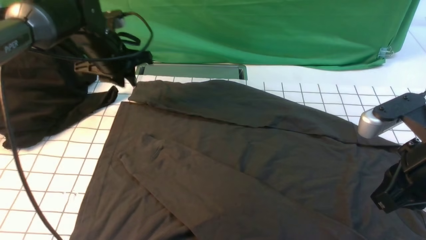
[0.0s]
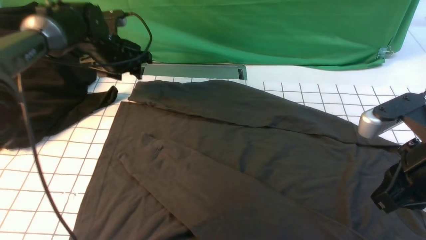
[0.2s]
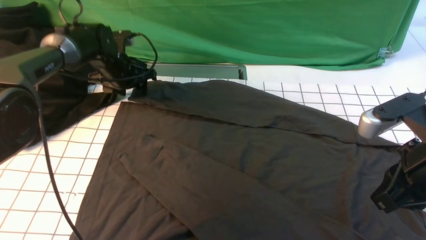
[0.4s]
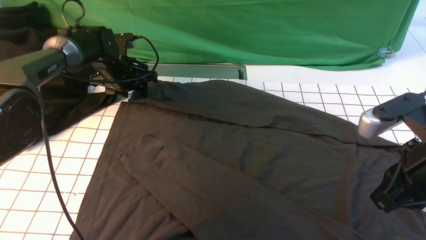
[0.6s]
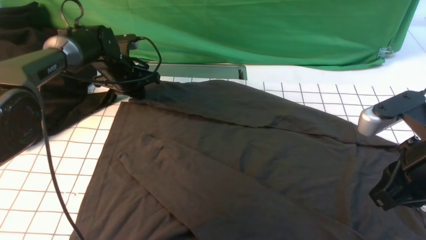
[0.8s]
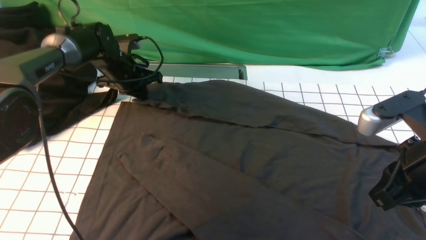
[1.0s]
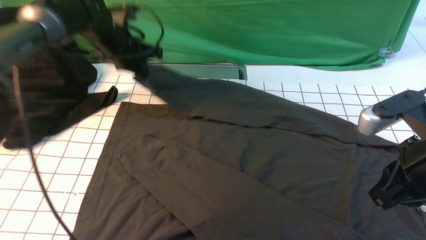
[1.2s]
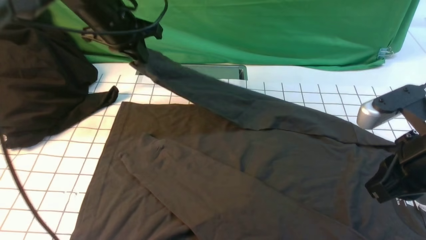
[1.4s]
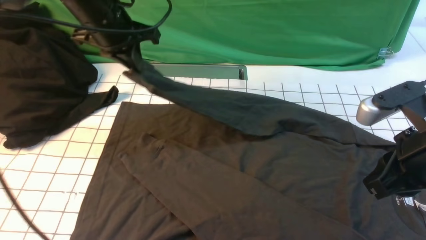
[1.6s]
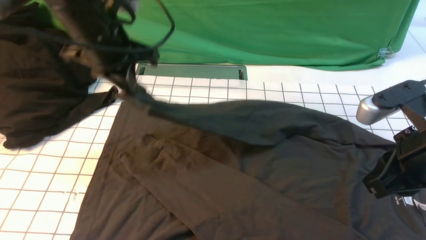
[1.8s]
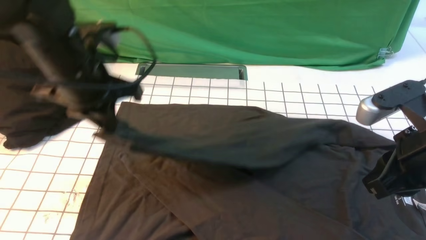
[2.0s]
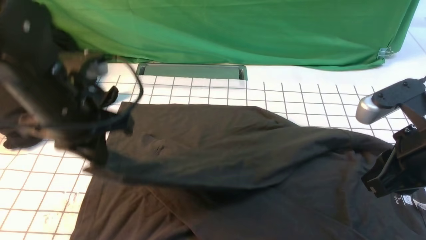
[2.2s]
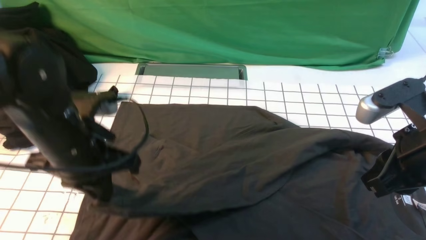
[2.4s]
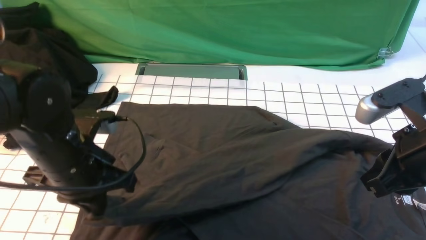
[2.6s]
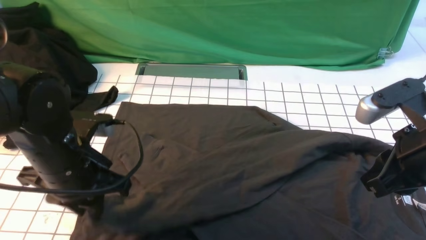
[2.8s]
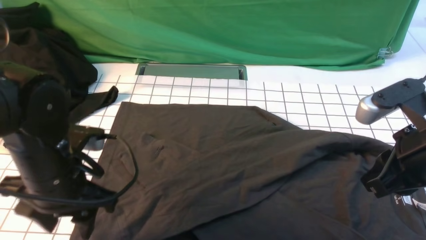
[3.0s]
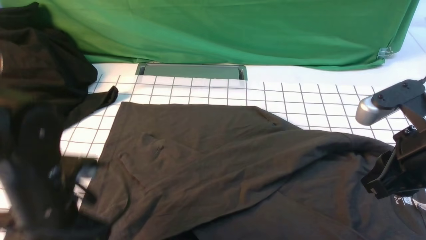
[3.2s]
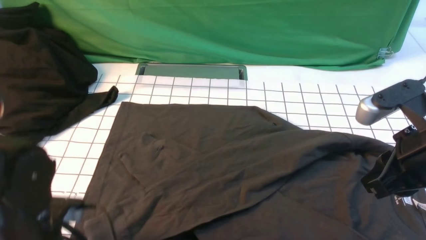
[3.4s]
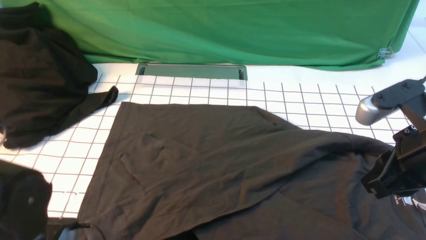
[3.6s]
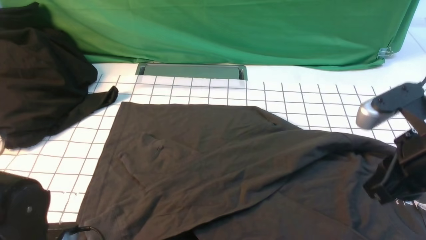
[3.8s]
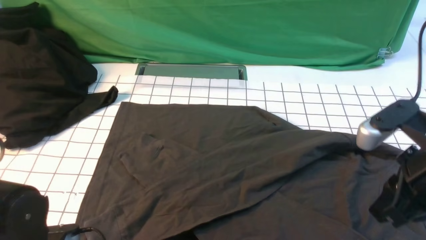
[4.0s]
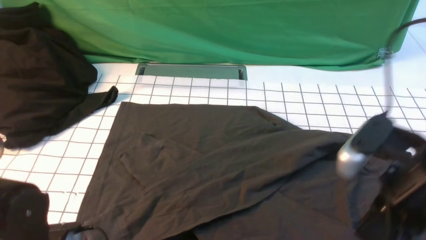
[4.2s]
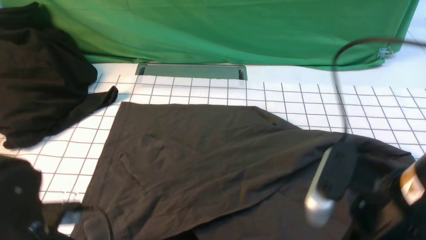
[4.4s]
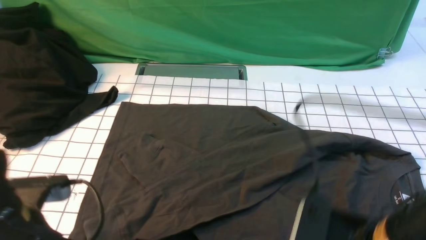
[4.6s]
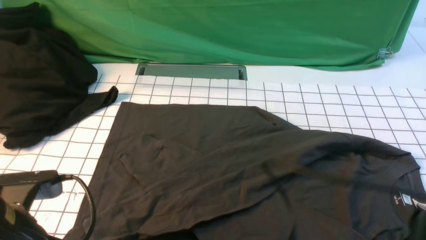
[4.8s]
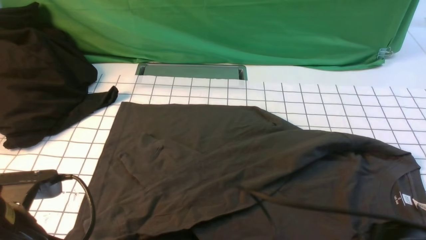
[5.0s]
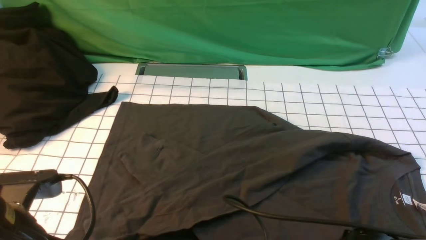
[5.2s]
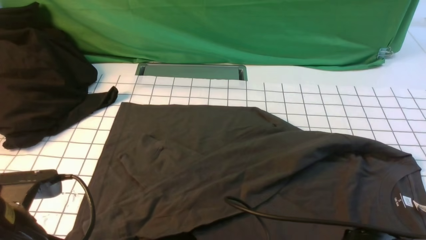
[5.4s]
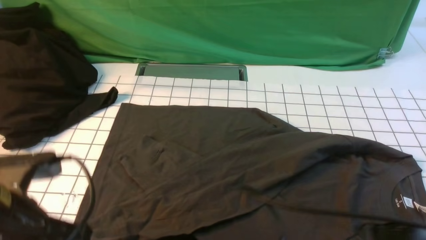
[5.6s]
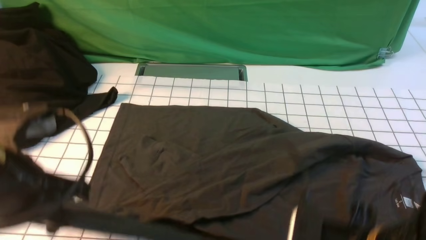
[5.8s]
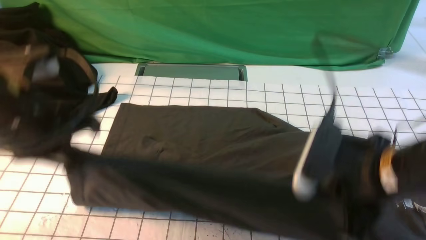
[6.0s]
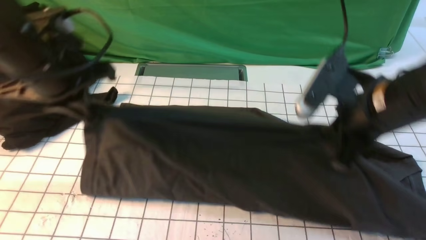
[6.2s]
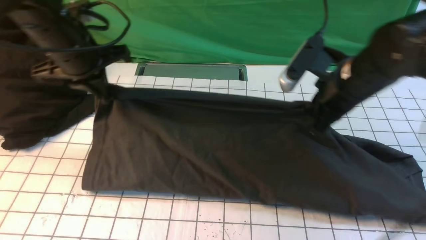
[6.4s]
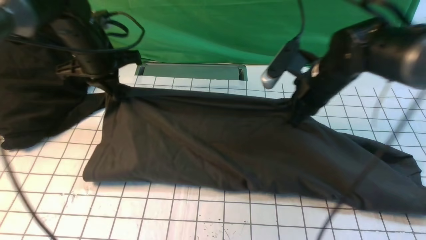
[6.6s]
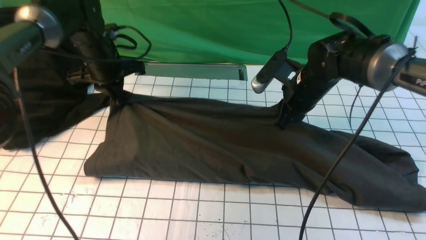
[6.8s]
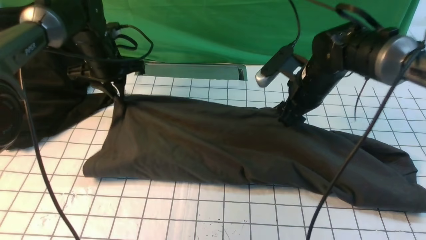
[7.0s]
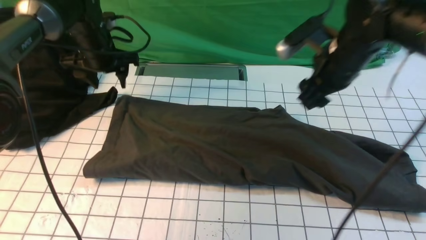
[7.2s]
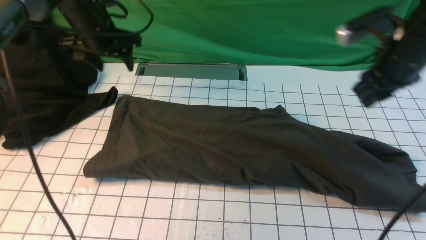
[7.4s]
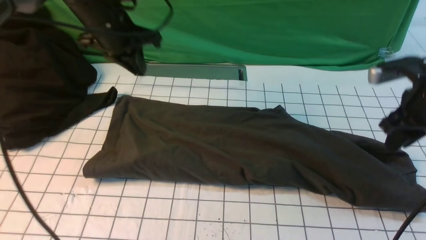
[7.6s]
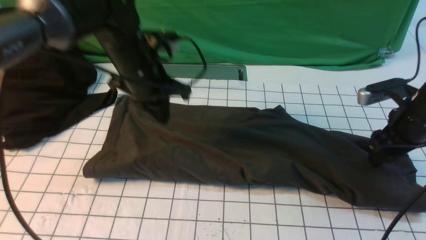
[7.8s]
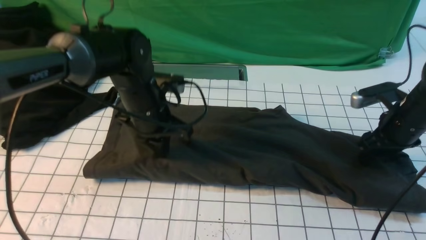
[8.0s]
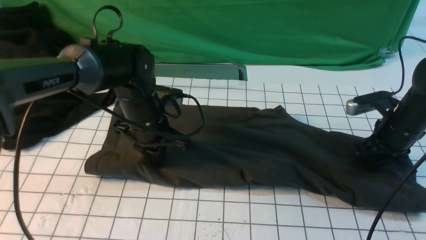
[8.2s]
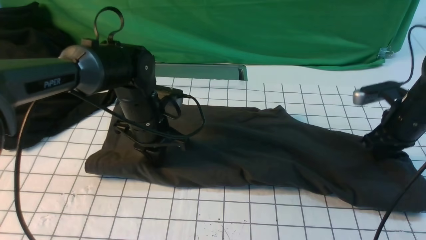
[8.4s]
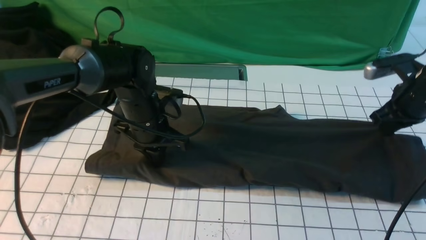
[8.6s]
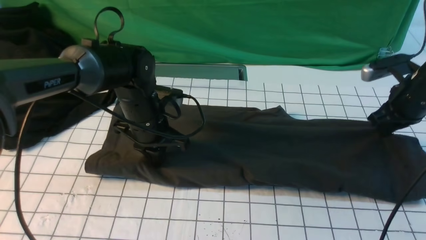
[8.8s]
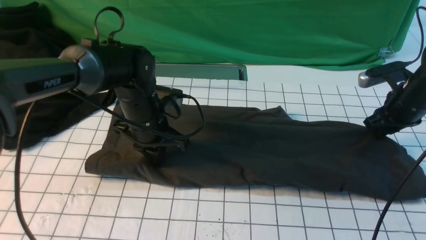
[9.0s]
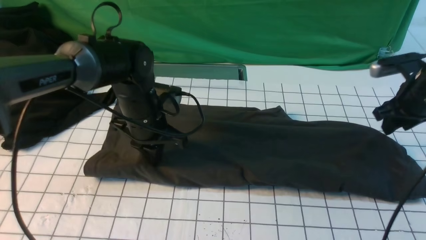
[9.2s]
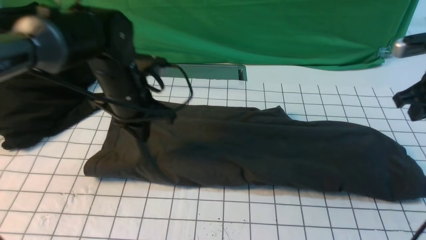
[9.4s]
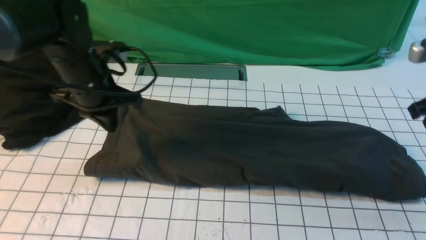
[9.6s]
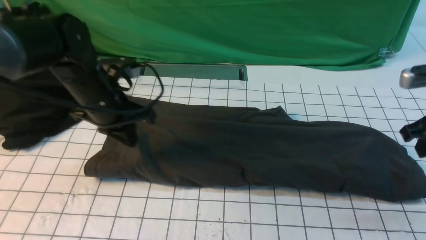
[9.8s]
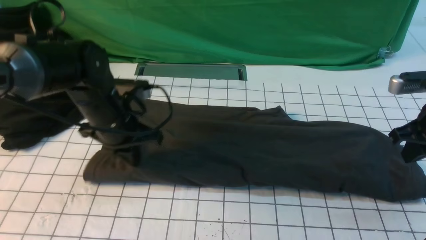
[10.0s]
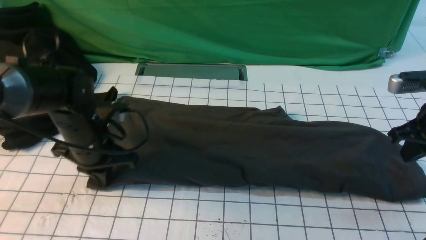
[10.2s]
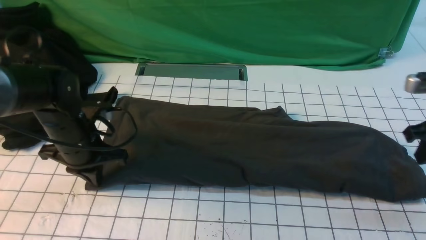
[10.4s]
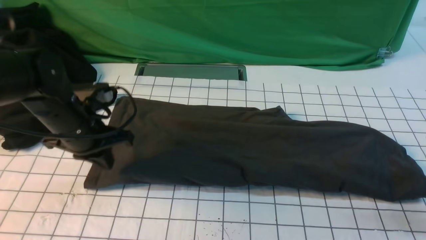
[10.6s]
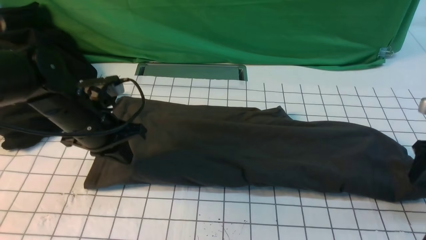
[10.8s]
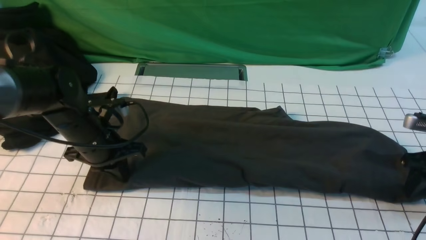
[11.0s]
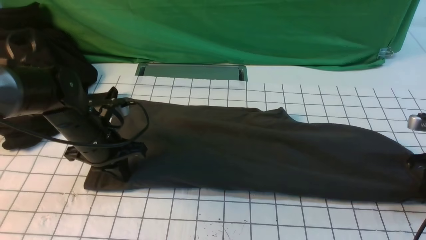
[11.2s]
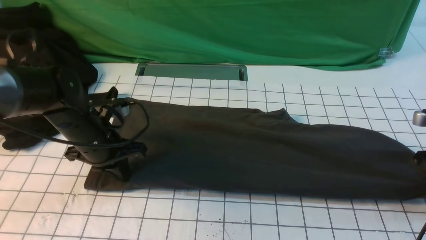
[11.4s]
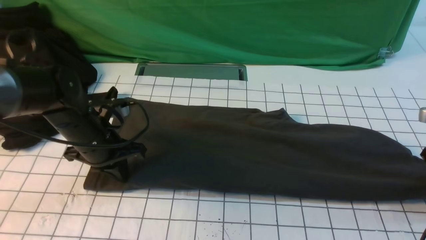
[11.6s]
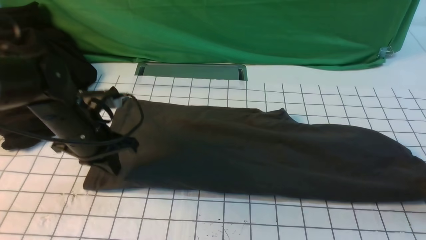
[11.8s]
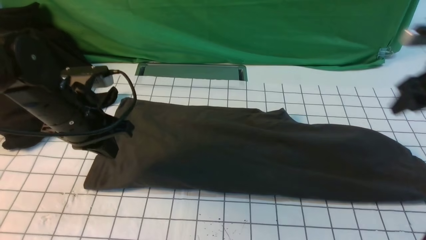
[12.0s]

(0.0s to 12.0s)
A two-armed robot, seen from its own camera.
Step, 0.0s - 1.0s: use the left arm to clamp the cuff farthest from it.
Step, 1.2s - 2.8s: use the left arm to drag and drop the cuff onto the cuff closest to the left arm.
Step, 3.2s - 5.6s: use both arms simultaneously to clamp the lower edge of the clothing fabric.
Step, 5.8s - 7.0s: use both arms to drag the lower edge of the fabric forward and fold it over the upper edge.
0.0s - 1.6s: The left gripper travels upward and backward by some 10 cm, and closes.
1.6s - 3.0s: The left gripper shifts some 20 cm backward and downward, and opens.
3.0s - 4.4s: The left gripper travels backward by roughly 5 cm, and closes, while the right gripper travels backward and to the left by roughly 10 cm.
4.4s - 6.0s: The right gripper reaches approximately 10 cm downward, then returns, and closes up, while the left gripper shifts about 15 cm upward and forward.
6.0s - 7.6s: The left gripper heads forward, covering about 20 cm, and opens and closes again. Meanwhile the right gripper is displaced forward and to the right by roughly 20 cm, and opens.
7.6s - 9.0s: The left gripper moves downward and backward, about 10 cm; the right gripper ends up roughly 5 cm from where it was, and closes, then reopens.
9.0s - 10.4s: The right gripper heads backward, covering approximately 10 cm, and closes, then reopens. Meanwhile the left gripper is displaced to the left by some 10 cm.
10.4s - 12.0s: The right gripper travels forward by some 5 cm, goes downward and returns, about 10 cm each way, and opens up.

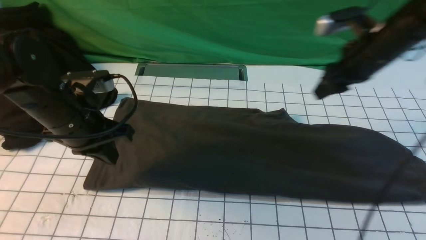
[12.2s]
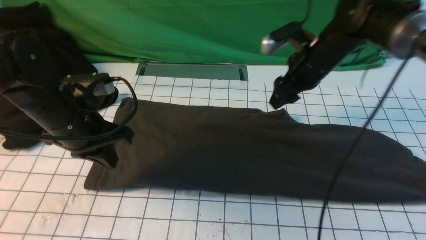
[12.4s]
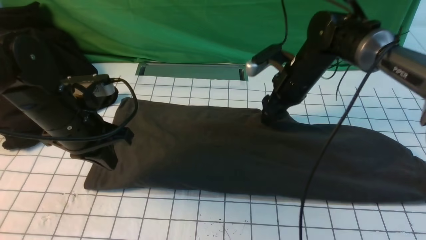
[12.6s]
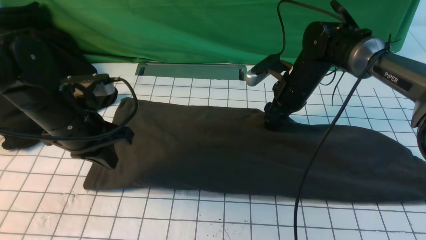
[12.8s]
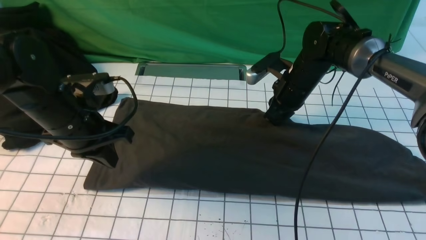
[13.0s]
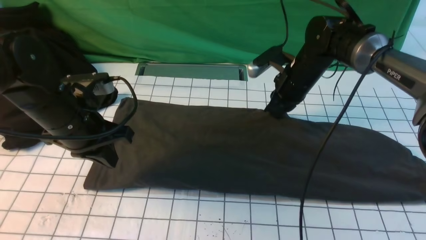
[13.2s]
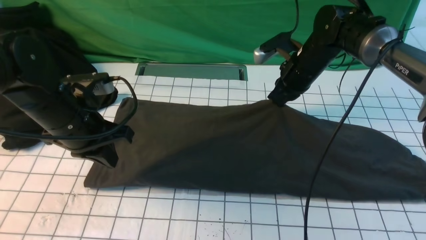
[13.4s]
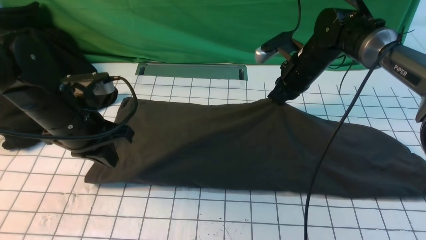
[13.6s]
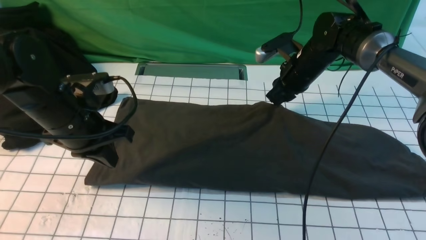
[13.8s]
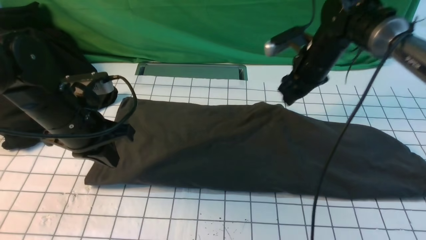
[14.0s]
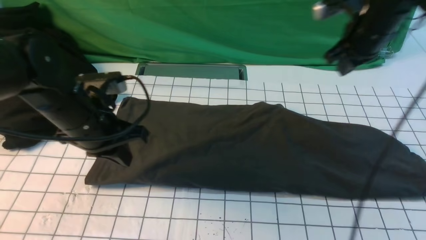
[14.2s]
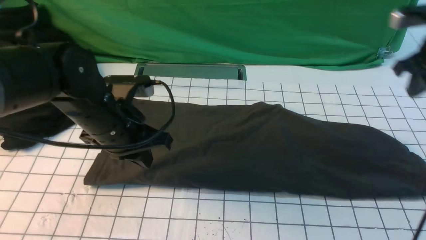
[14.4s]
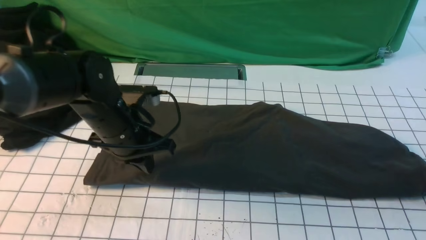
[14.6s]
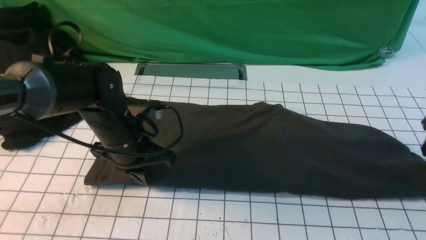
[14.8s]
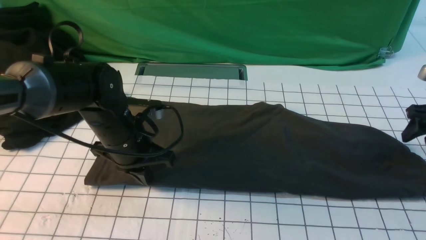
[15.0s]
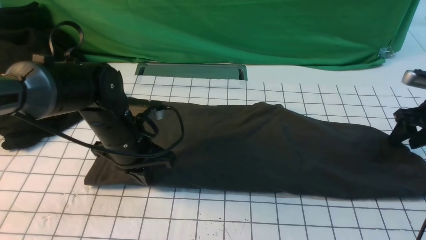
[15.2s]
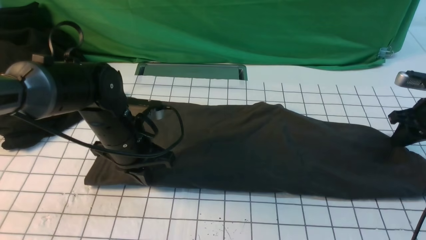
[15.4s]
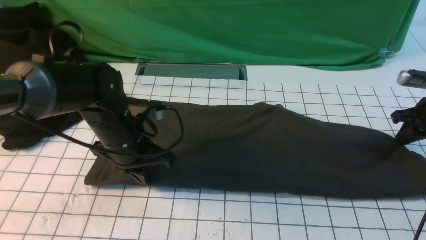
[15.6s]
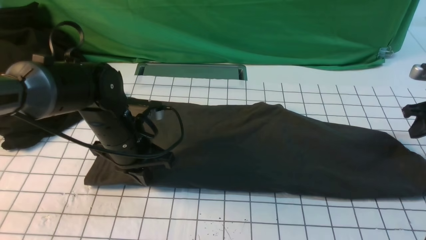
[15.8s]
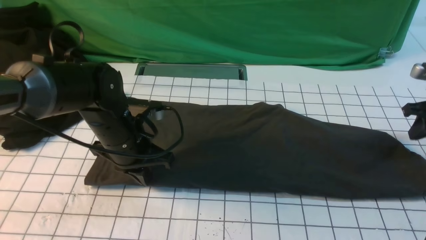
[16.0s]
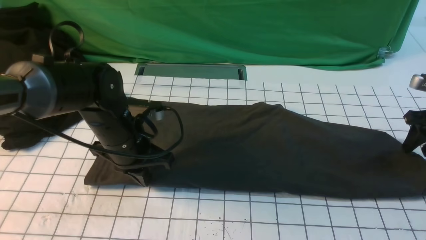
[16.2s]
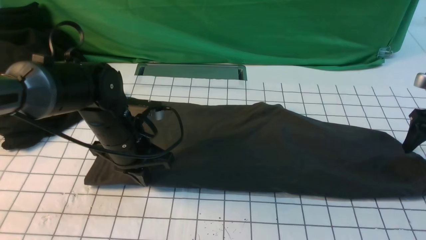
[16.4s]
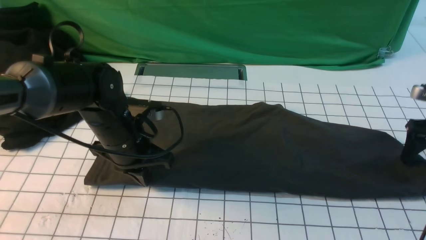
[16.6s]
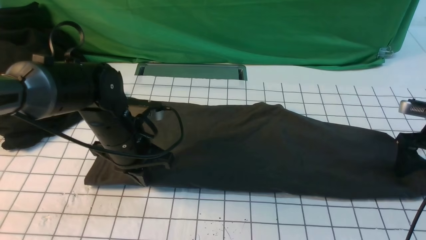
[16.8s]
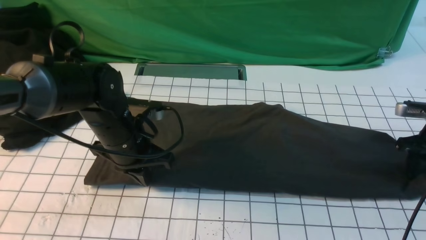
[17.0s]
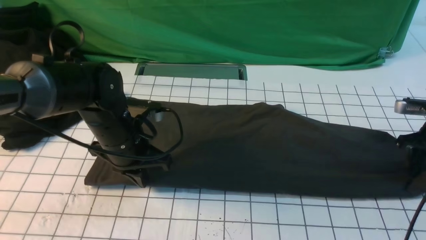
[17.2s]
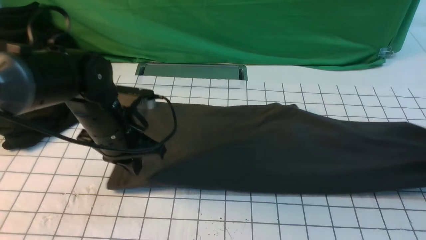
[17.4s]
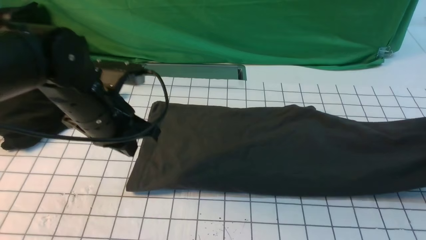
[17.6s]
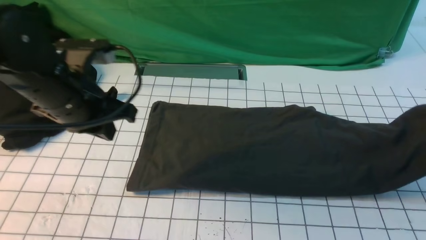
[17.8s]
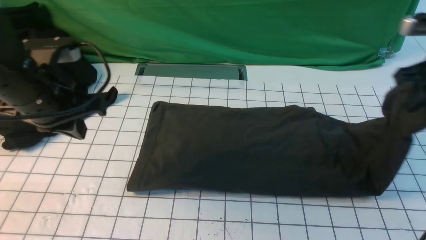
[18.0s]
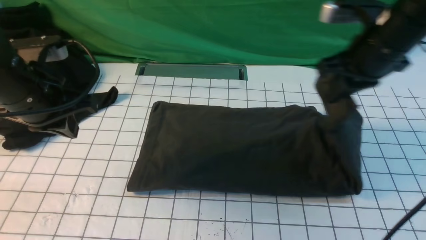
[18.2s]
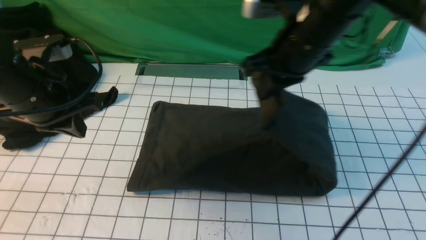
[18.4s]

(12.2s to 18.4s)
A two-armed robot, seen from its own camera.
Step, 12.2s - 17.2s: use the right arm to clamp the right edge of the fabric.
12.2s - 13.8s: The right gripper is displaced to the left, downward and forward by roughly 10 cm, and closes its fingers.
13.8s - 15.4s: The right gripper goes about 25 cm to the right, and opens, then closes again. The left gripper goes approximately 10 cm to the right and downward.
15.4s - 16.8s: The right gripper opens its fingers.
16.8s - 18.4s: The left gripper travels upward and to the left by approximately 15 cm. The right gripper goes roughly 35 cm to the left and upward, and closes.
